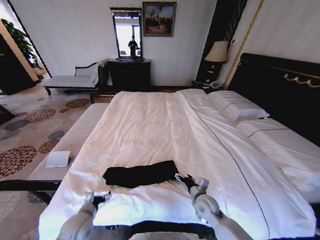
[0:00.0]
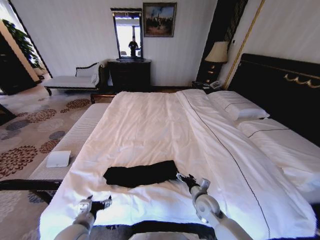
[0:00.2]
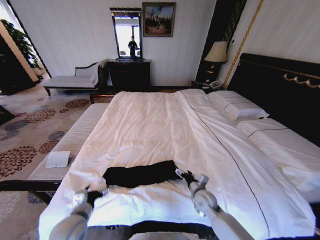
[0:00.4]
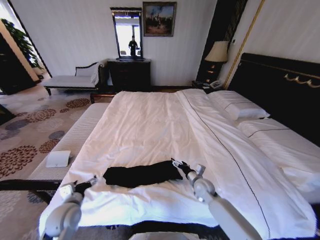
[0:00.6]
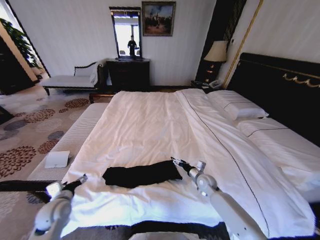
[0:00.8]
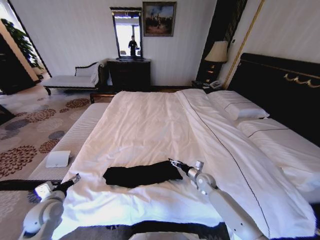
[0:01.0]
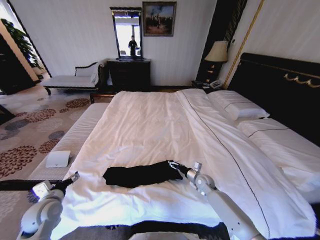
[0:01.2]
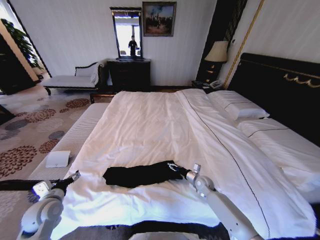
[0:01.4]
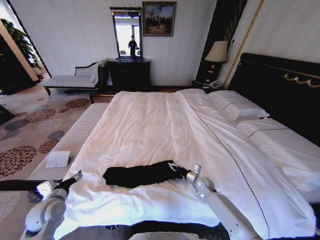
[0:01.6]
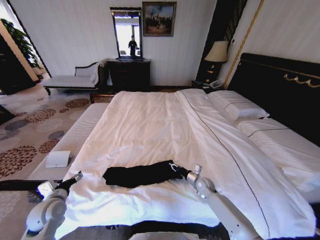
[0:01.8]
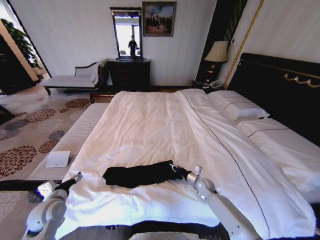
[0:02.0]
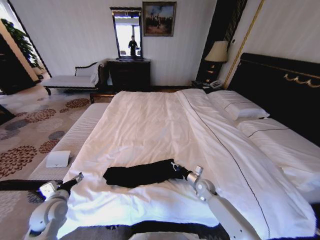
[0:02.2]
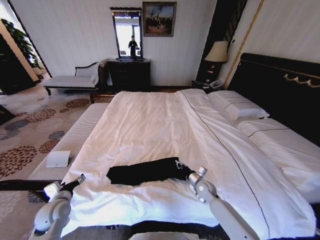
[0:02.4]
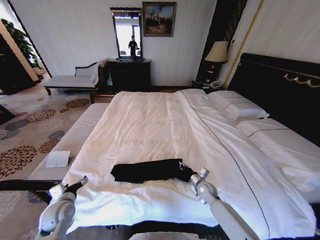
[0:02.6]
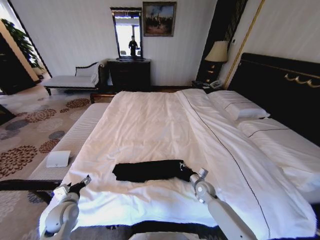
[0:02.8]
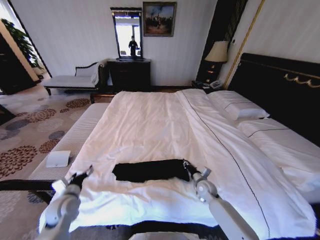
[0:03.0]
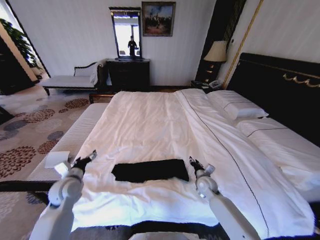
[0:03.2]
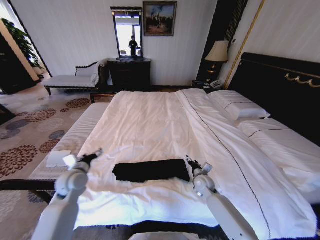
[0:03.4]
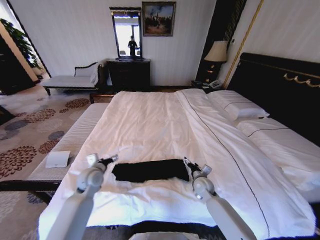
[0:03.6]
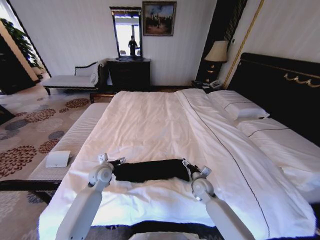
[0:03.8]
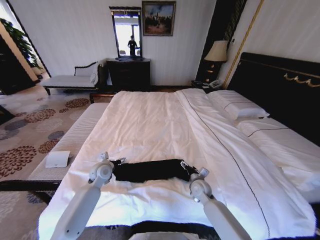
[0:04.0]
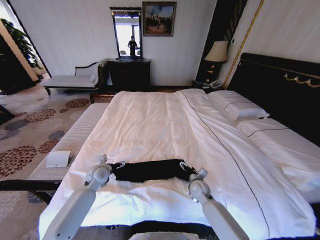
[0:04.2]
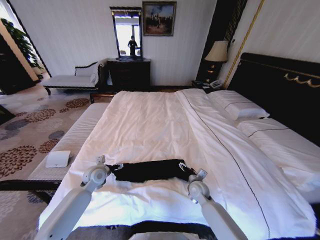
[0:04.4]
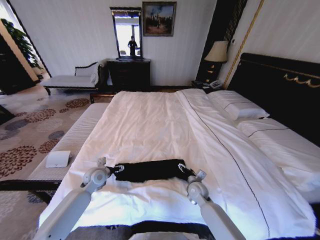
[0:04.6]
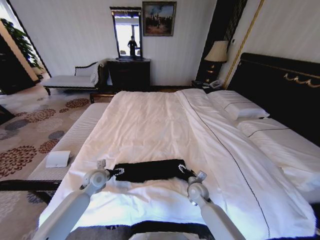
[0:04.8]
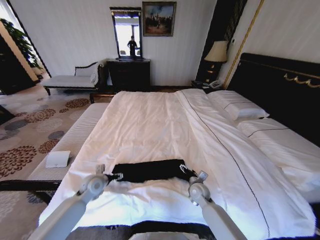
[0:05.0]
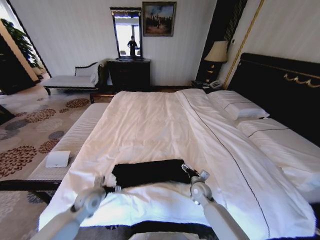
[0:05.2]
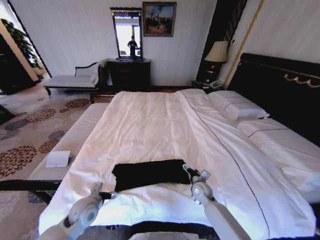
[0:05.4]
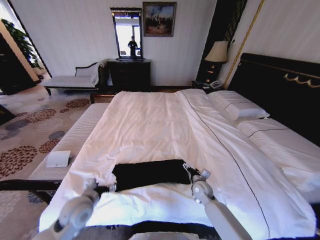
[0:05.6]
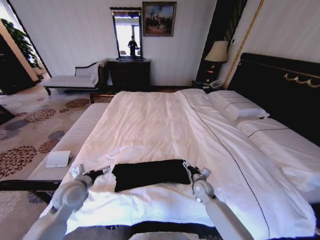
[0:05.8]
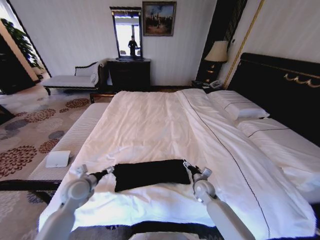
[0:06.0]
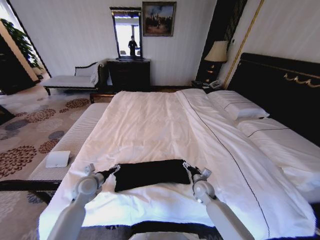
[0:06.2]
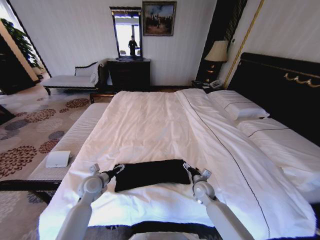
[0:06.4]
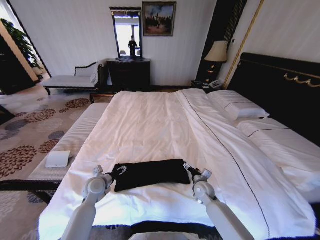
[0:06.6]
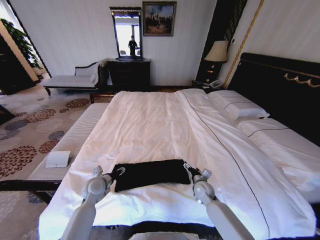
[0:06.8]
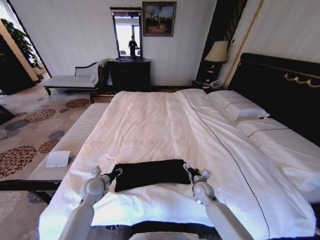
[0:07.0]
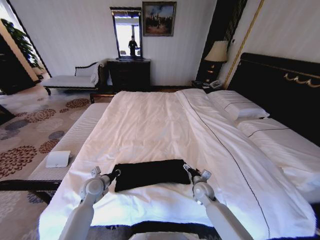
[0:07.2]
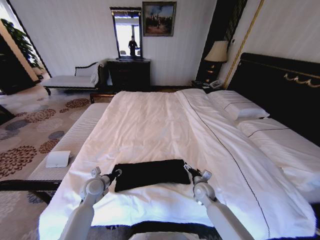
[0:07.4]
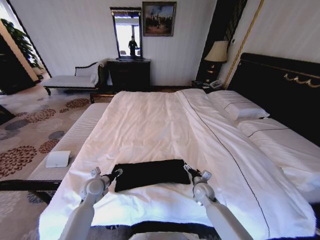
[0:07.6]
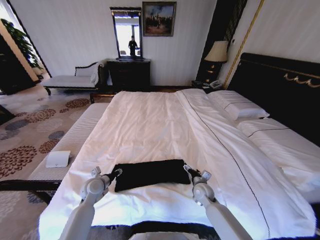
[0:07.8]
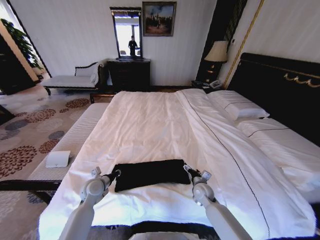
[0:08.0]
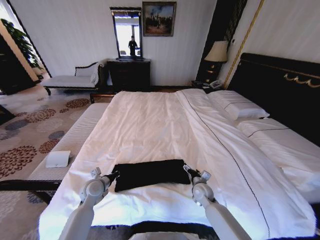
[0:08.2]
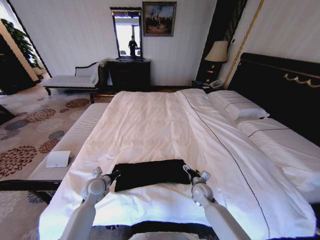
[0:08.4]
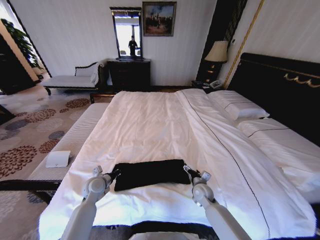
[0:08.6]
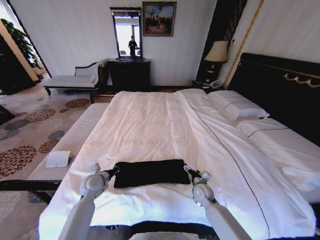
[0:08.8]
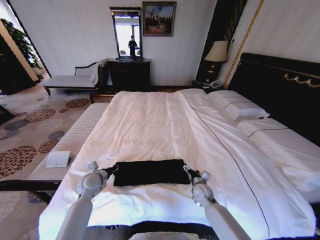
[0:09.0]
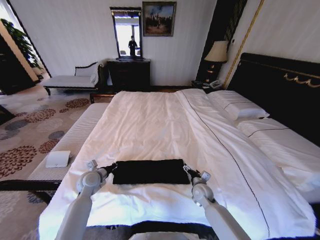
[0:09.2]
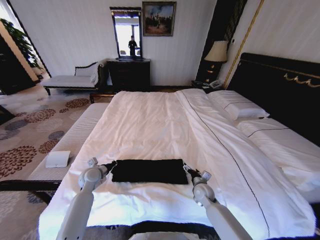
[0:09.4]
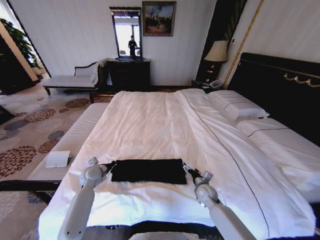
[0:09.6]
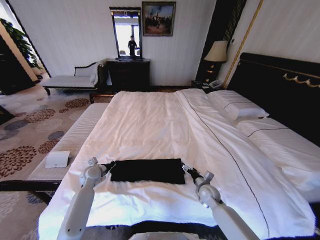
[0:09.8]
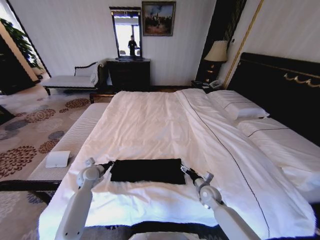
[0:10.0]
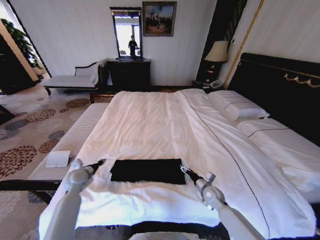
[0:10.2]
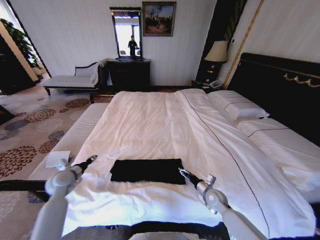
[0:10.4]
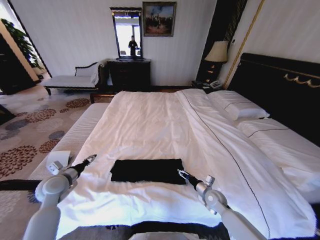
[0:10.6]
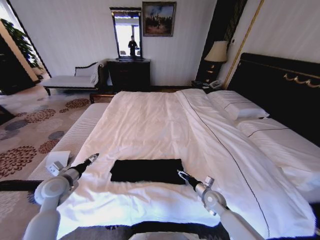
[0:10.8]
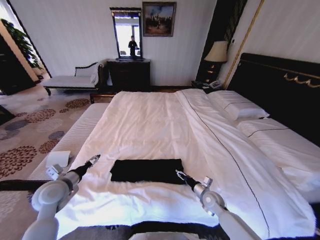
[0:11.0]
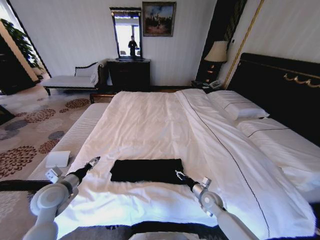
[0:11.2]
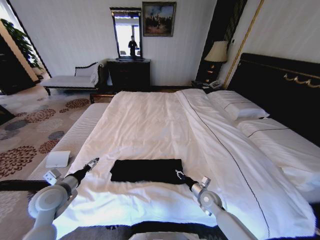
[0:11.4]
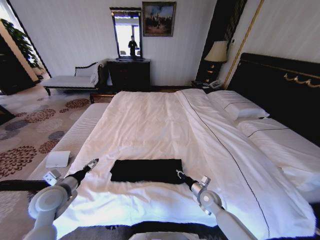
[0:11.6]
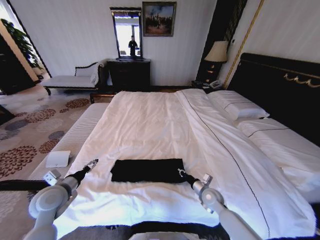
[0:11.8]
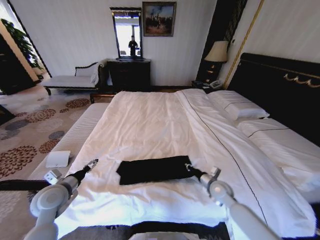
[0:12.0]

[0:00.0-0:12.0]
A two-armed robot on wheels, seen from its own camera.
Task of the whole recording: Fold the clothes on the bed.
0.0 to 1.6 s: The right gripper travels forward, downward and to the right by about 15 cm, and closes up. The left gripper heads to the left, covering some 10 cm.
3.0 to 4.4 s: The right gripper changes place by roughly 5 cm, and opens up, while the left gripper is displaced forward and to the right by approximately 15 cm.
4.4 to 6.0 s: The left gripper moves backward, some 10 cm.
6.0 to 7.6 s: The left gripper travels downward by approximately 5 cm, and closes its fingers.
7.6 to 9.0 s: The left gripper closes its fingers.
9.0 to 10.4 s: The left gripper shifts some 10 cm to the left, and opens up. The right gripper goes some 5 cm to the right.
10.4 to 12.0 s: The right gripper goes roughly 5 cm upward, and closes. The left gripper is displaced backward by about 10 cm, and opens up.

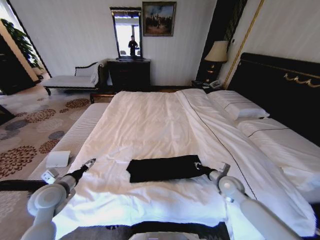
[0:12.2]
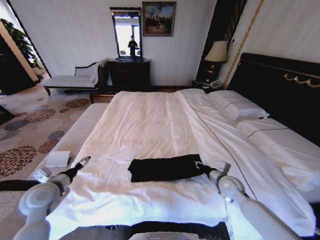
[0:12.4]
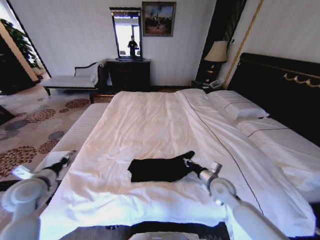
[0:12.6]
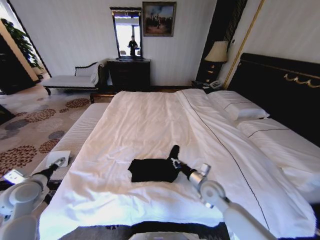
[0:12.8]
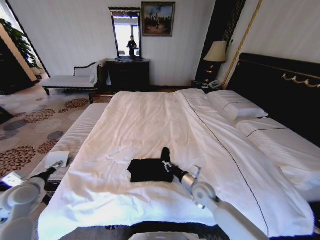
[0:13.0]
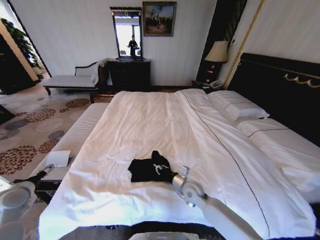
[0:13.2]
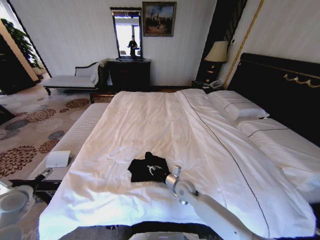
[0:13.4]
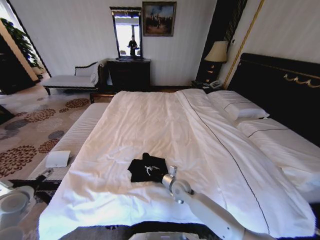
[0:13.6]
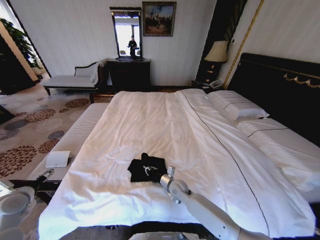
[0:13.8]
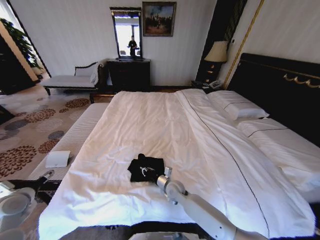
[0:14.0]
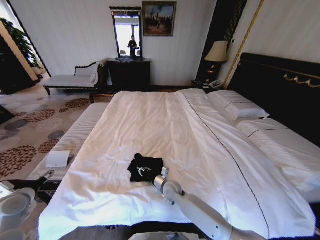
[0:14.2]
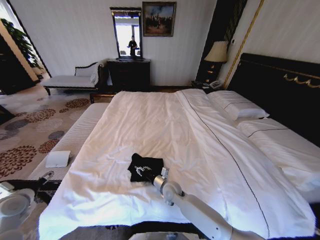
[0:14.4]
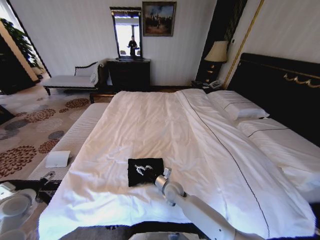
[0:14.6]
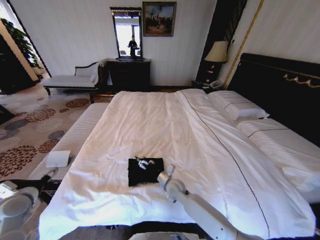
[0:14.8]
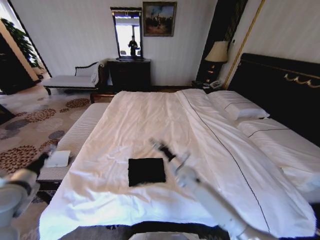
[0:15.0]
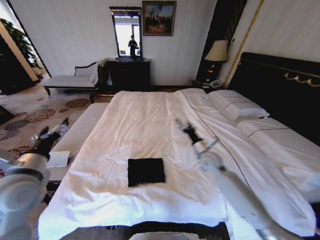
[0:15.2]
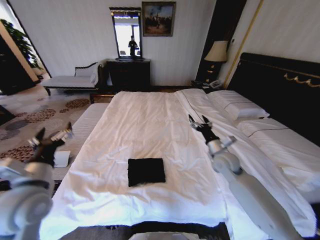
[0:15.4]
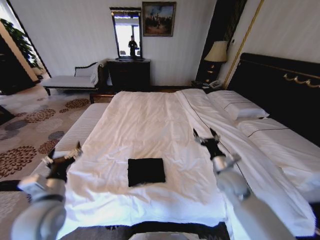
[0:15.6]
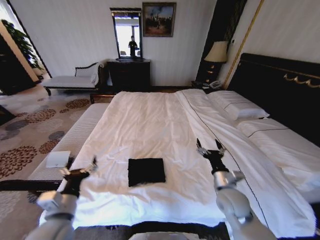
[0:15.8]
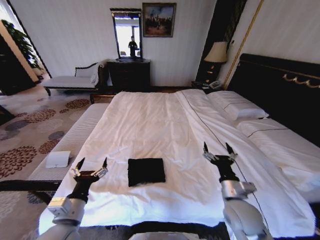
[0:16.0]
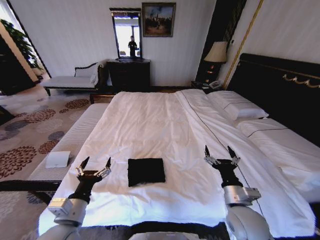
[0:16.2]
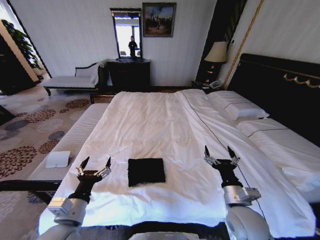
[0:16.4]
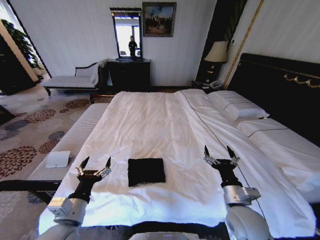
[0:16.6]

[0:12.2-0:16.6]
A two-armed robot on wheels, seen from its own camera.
Task of the whole recording: Fold the clothes on the bed.
12.2 to 13.6 s: The right gripper goes approximately 20 cm to the left, while the left gripper heads to the left, covering some 10 cm.
13.6 to 15.2 s: The left gripper heads to the right and upward, covering roughly 20 cm. The right gripper moves upward, to the right and forward, approximately 20 cm, and opens.
15.2 to 16.6 s: The left gripper shifts some 15 cm downward, to the right and backward, while the right gripper moves backward, some 25 cm.

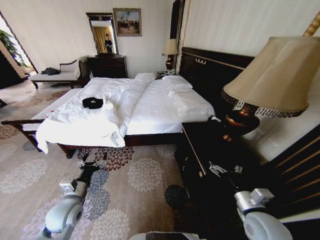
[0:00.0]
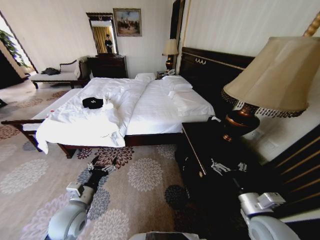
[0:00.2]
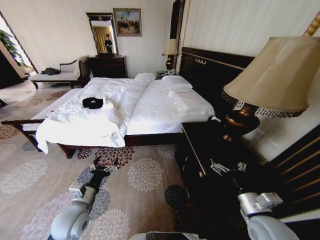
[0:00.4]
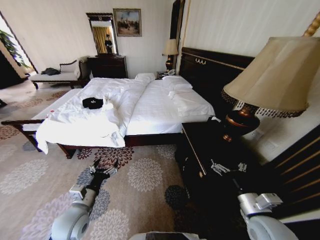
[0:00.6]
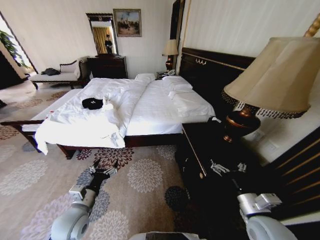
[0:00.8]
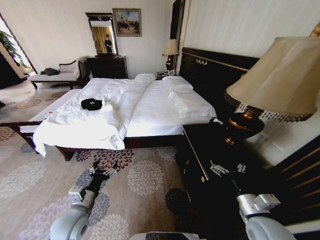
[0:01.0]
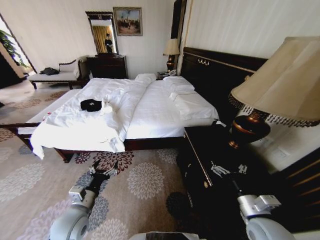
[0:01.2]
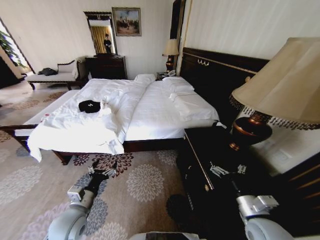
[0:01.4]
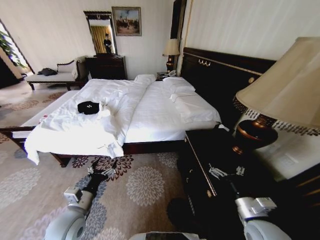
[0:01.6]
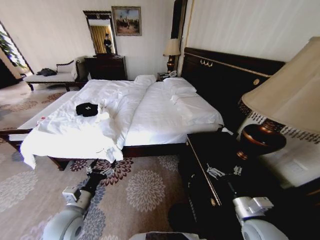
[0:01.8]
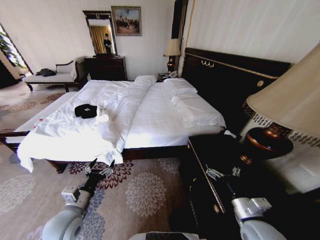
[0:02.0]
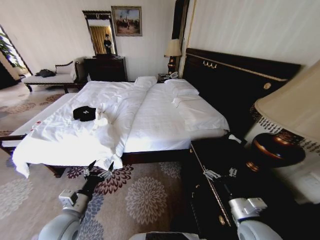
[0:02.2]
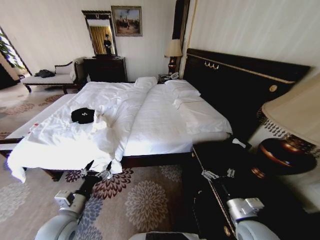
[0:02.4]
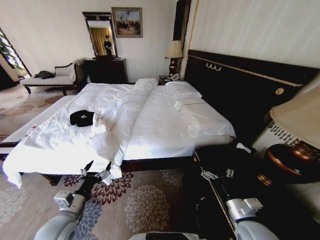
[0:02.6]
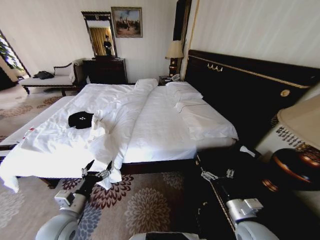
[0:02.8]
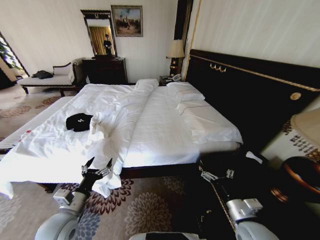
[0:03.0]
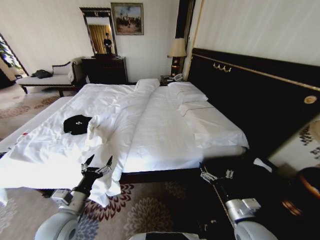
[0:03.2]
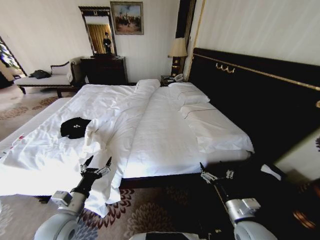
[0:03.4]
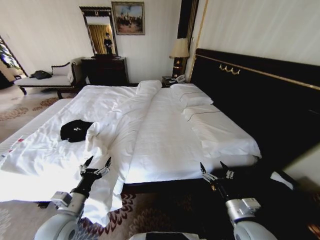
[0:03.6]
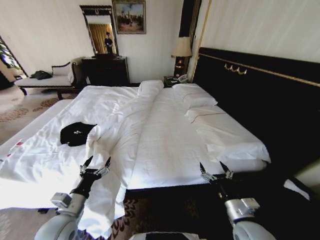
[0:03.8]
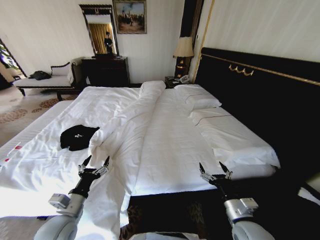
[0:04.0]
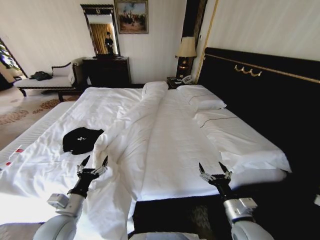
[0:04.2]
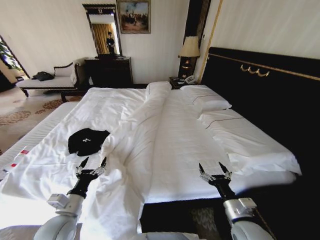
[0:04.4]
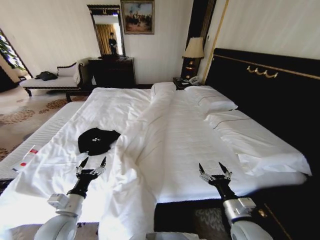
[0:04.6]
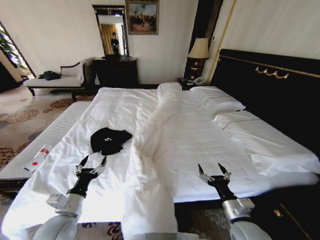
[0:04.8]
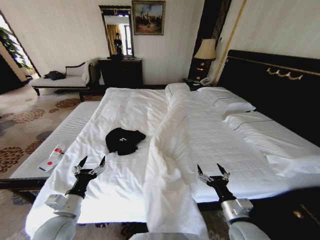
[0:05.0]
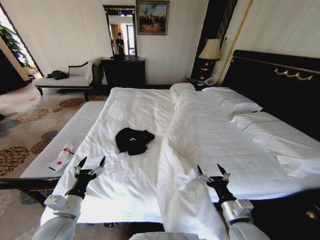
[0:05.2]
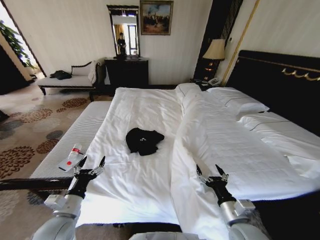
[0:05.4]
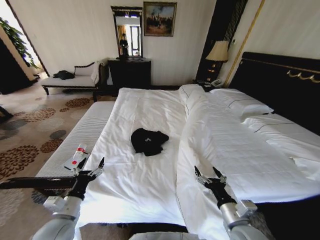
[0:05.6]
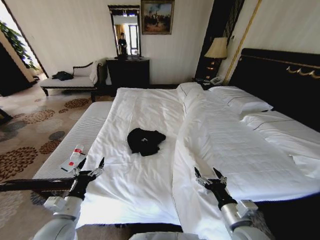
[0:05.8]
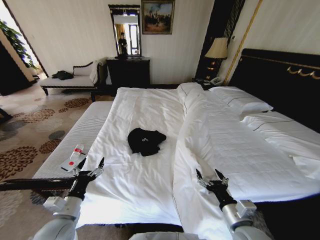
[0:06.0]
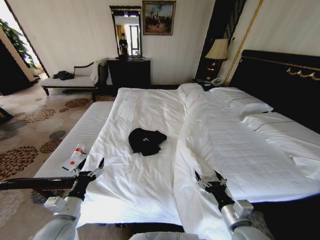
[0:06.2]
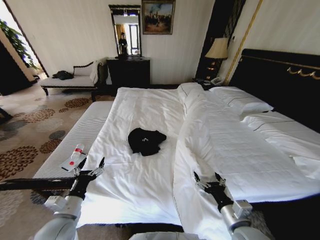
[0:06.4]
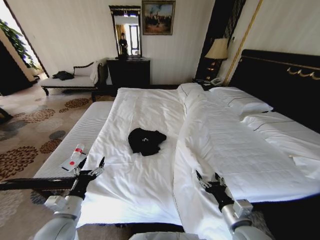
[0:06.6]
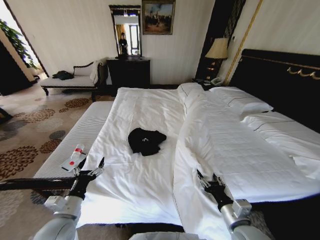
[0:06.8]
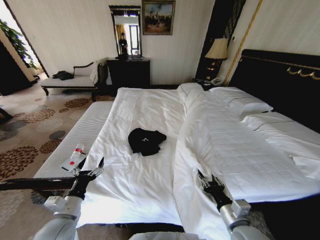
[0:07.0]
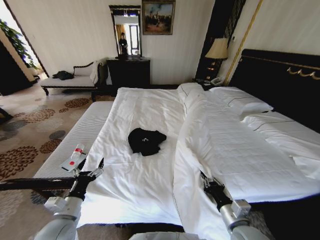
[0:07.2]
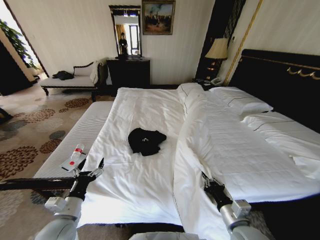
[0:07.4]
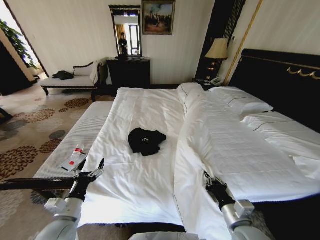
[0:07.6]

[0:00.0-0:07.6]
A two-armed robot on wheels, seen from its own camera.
Task of the whole recording: Fold the clothes on the bed.
6.0 to 7.6 s: The right gripper closes its fingers.
